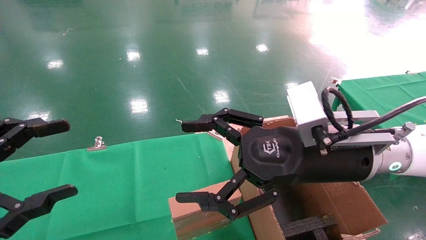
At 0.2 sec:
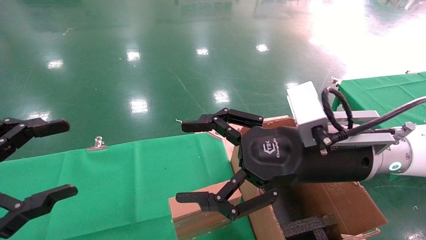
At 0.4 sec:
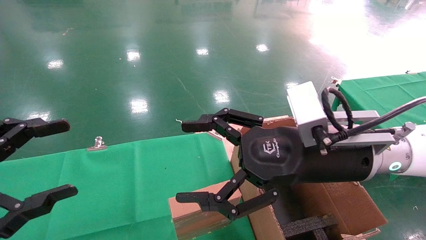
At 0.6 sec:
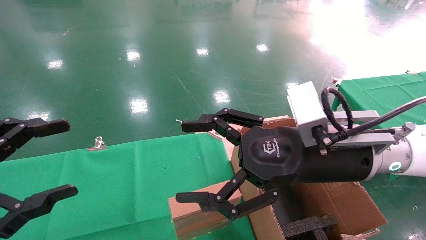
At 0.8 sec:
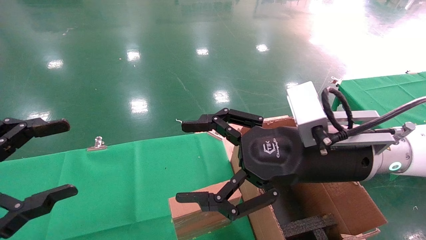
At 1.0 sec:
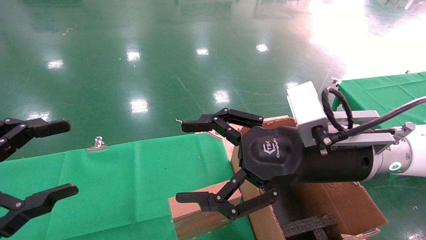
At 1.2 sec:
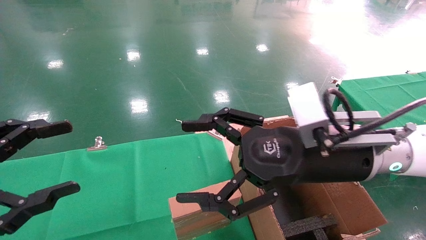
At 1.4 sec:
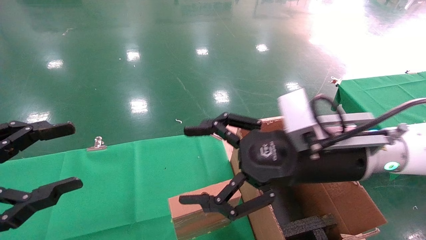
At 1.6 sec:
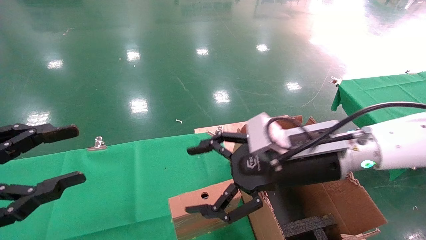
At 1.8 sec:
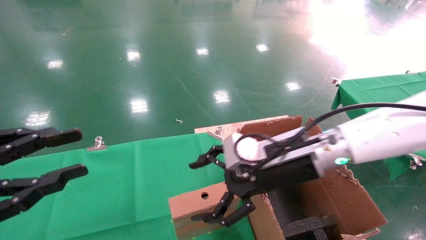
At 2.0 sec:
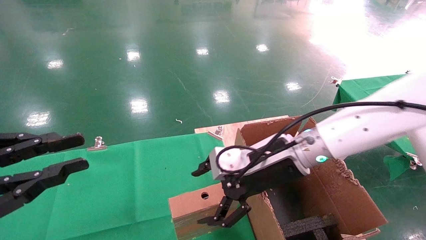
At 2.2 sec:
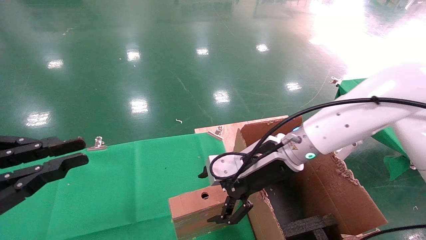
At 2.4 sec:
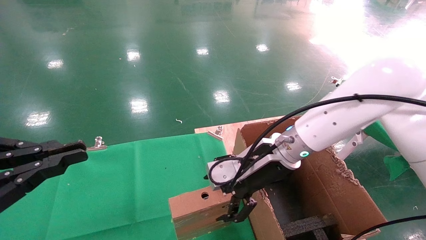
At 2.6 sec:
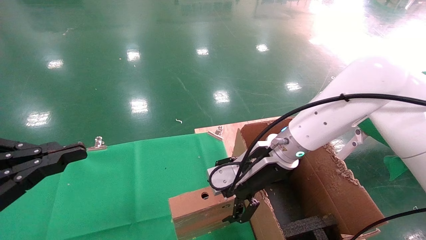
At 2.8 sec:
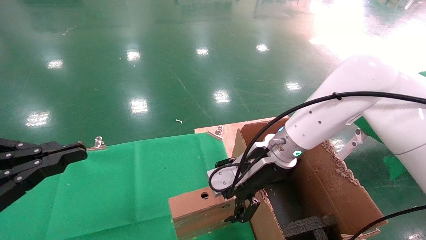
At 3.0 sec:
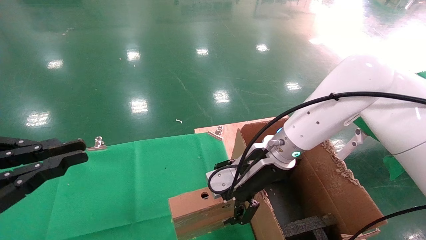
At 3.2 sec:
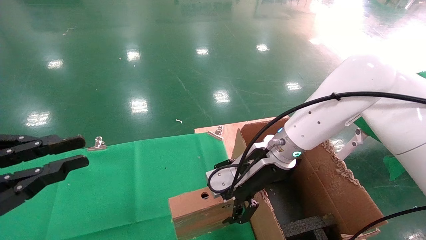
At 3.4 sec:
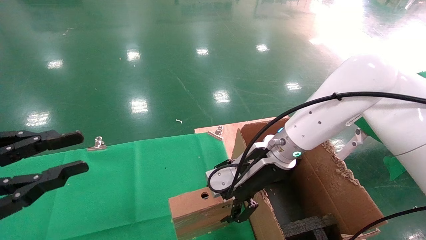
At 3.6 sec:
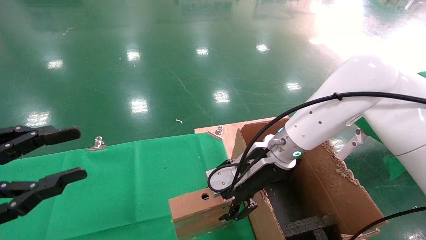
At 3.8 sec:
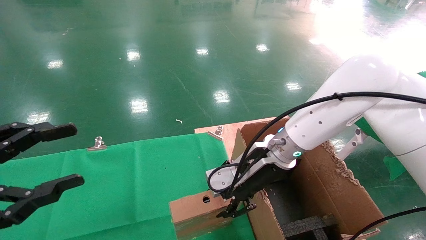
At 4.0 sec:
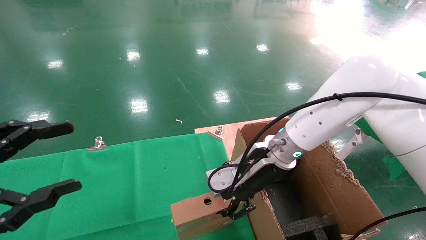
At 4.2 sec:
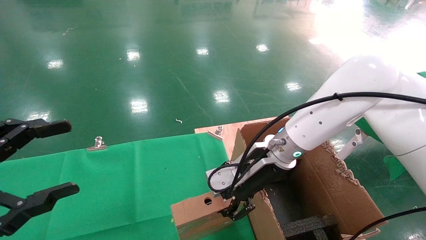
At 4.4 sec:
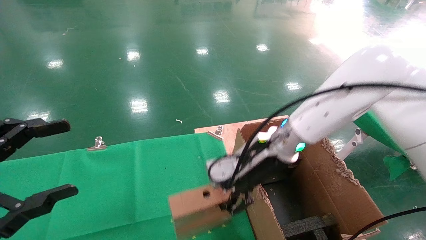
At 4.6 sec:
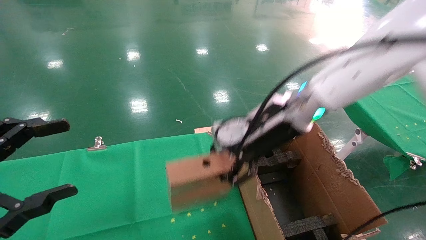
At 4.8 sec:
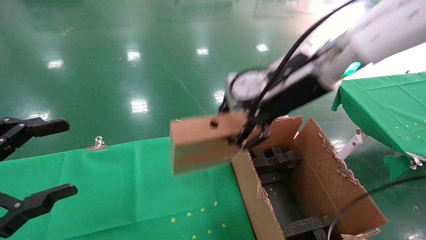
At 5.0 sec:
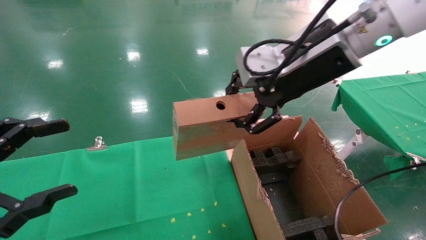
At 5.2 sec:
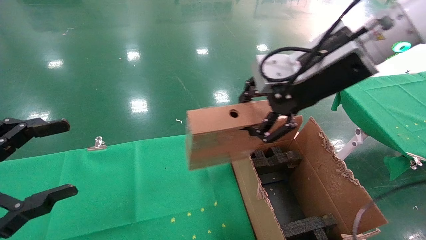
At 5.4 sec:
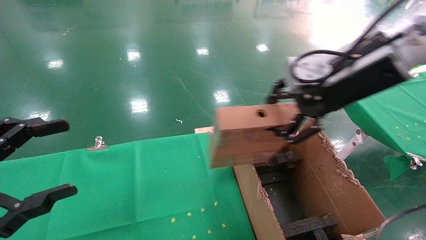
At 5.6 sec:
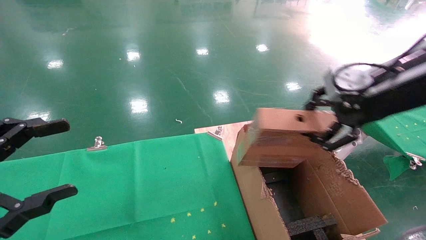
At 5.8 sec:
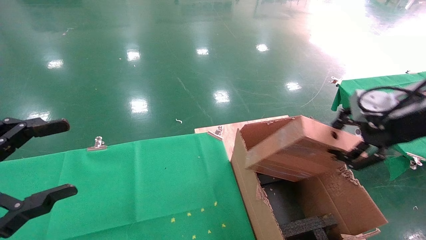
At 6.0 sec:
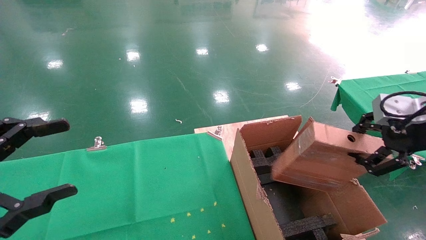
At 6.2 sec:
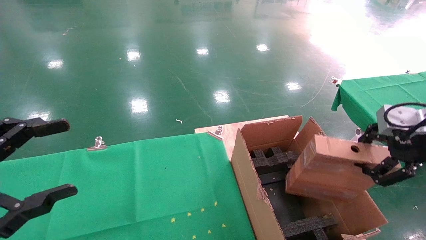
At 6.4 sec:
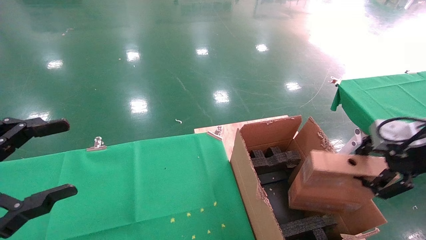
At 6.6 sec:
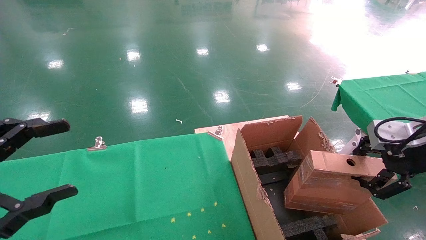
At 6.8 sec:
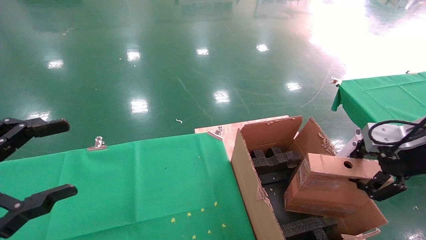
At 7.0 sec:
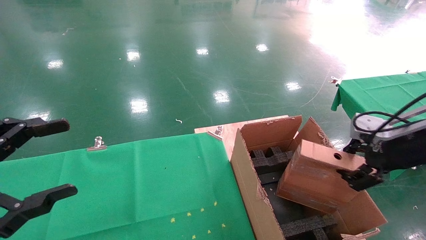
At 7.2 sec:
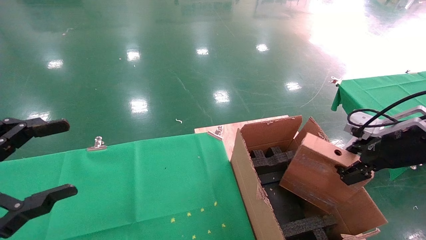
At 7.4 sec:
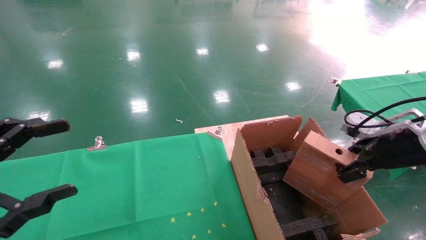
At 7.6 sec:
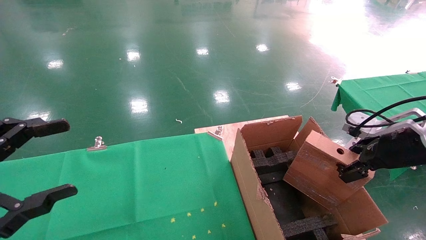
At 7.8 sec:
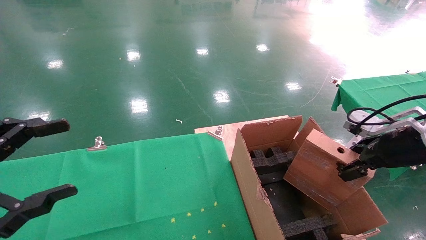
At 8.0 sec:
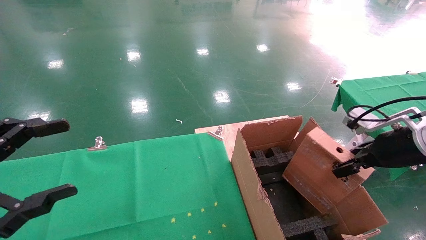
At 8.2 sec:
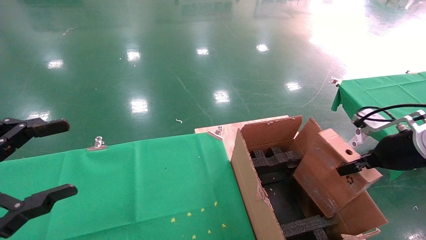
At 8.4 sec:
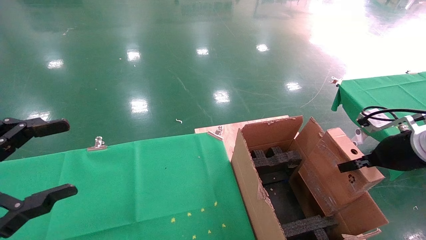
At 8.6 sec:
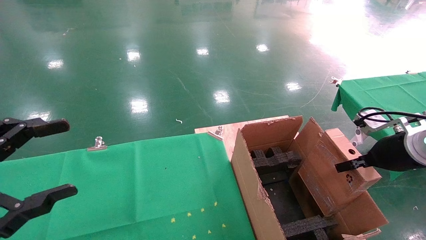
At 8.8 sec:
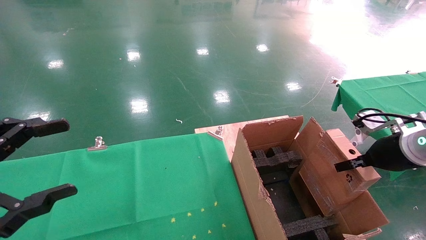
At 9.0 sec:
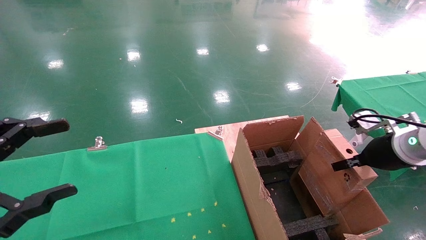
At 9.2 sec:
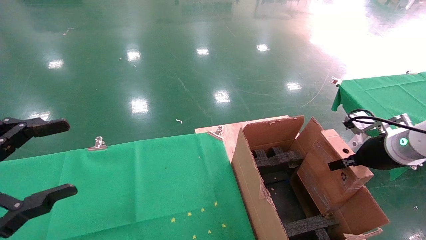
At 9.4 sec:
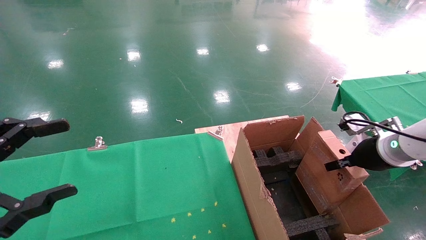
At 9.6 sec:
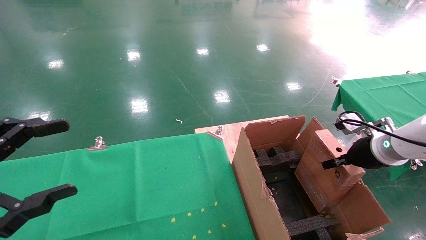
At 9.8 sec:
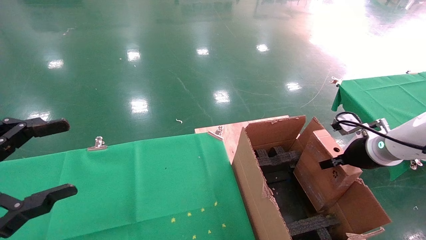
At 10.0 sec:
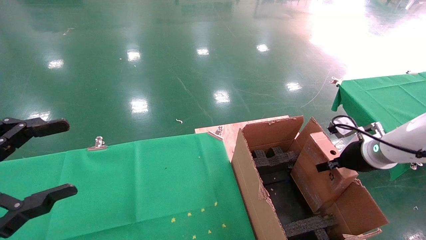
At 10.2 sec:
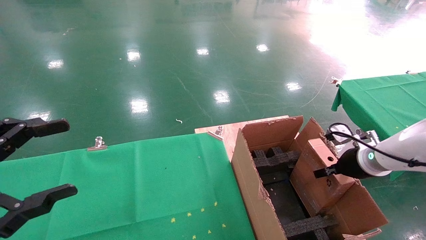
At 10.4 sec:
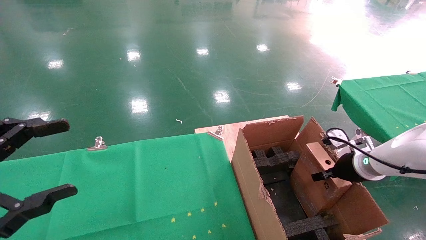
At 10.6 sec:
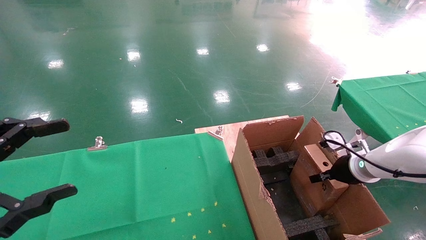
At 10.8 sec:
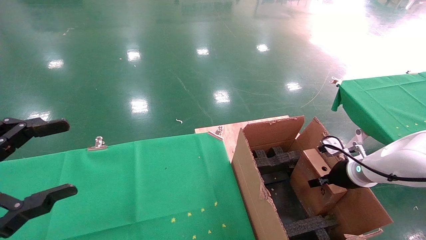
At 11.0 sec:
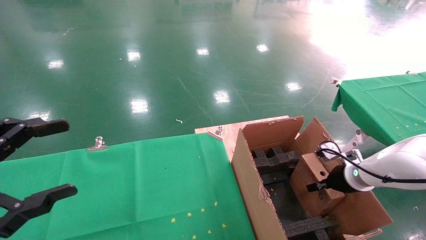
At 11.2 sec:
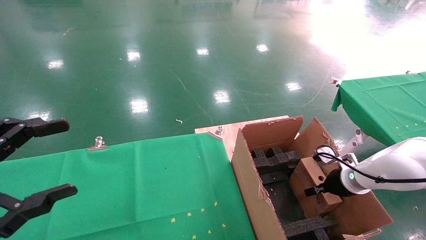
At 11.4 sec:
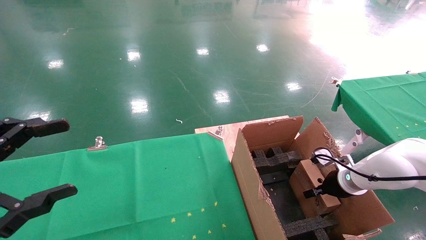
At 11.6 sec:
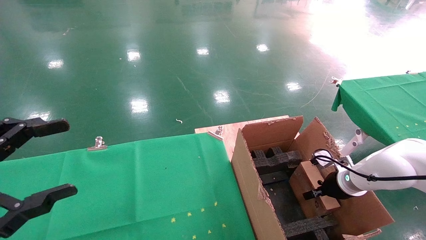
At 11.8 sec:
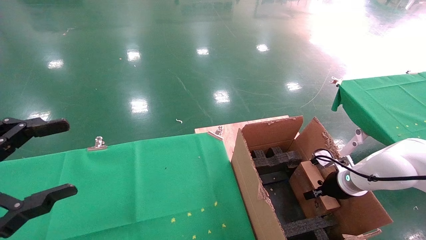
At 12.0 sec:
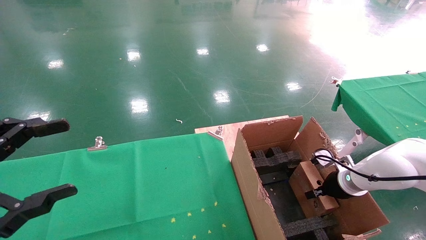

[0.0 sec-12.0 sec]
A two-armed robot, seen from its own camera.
Task of the whole recording: using a robotic arm to pick up a cardboard box and palace it the carton.
Step, 1.6 sec to 4.0 sec: Pick up the mouse and the power cord paper box.
0.0 sec to 1.6 sec: The grippers move only a little.
1.6 sec to 3.0 sec: The right gripper goes about 10 cm forward; the left gripper closes.
3.0 sec to 4.4 sec: The right gripper closes up. The left gripper opens its fingers.
4.4 sec to 6.0 sec: The right gripper moves to the right and backward, some 30 cm.
6.0 sec to 7.6 sec: The right gripper is displaced downward by approximately 5 cm.
9.0 sec to 10.4 sec: The right gripper goes approximately 10 cm downward and forward.
10.4 sec to 12.0 sec: The right gripper shifts some 5 cm downward.

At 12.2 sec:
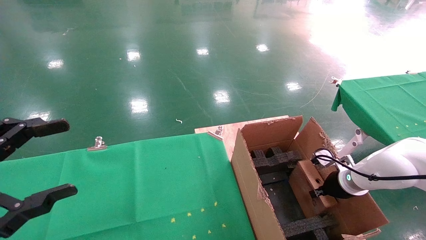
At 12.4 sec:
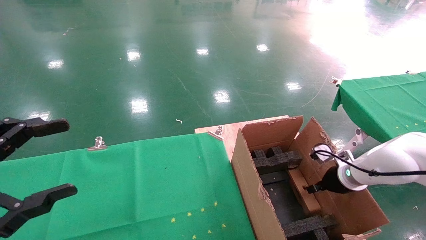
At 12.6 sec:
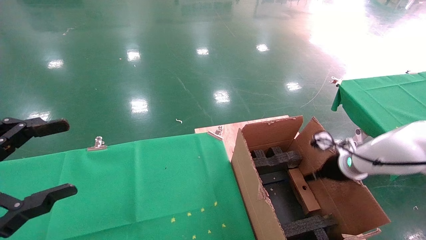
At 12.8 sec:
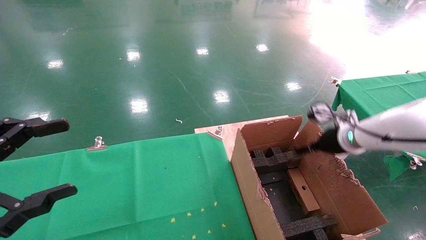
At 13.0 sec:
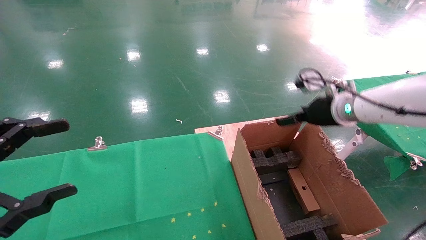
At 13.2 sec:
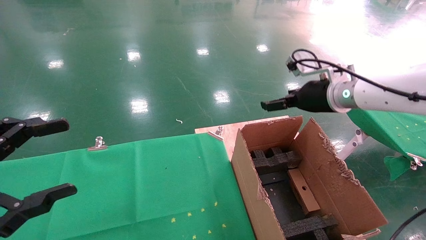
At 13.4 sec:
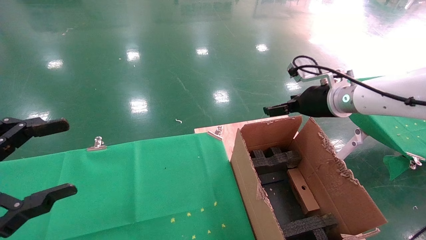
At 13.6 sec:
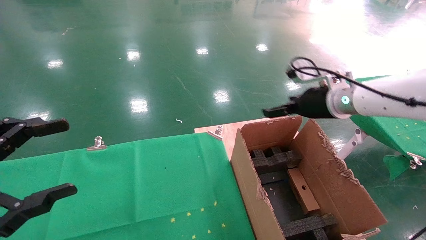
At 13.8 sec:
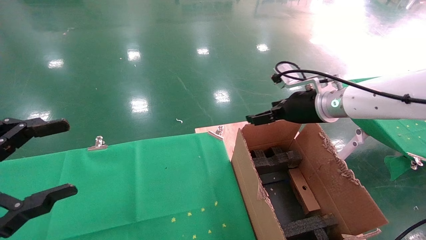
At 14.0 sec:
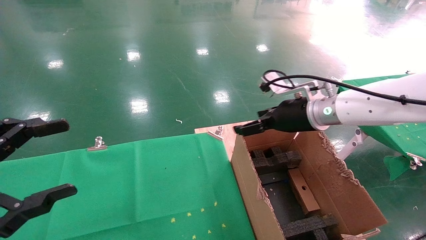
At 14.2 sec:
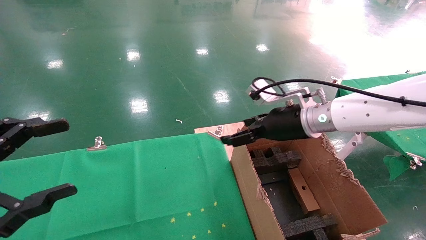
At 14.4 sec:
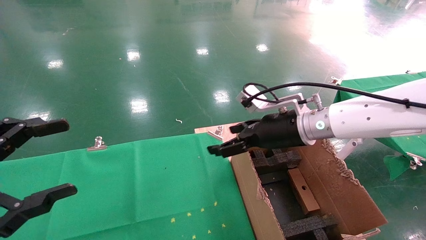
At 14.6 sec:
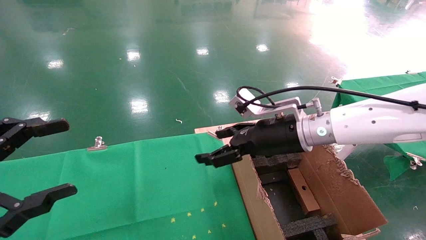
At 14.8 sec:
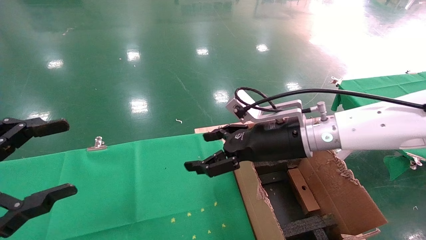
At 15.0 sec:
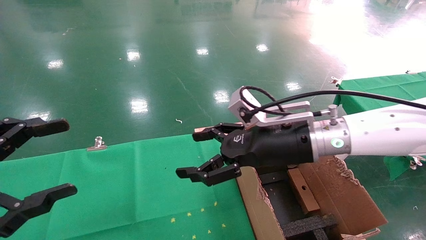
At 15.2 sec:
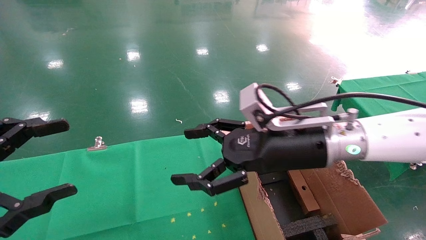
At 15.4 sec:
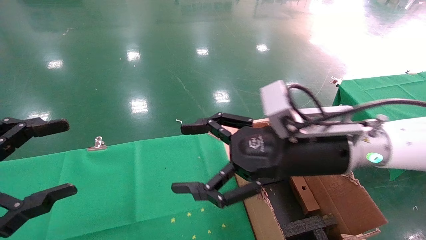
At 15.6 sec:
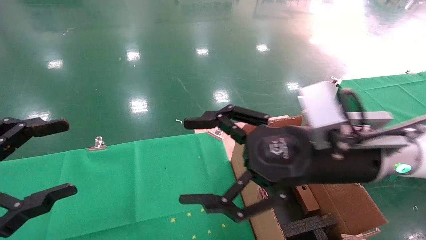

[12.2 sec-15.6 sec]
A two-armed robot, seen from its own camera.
Task of the whole recording: using a robotic arm to pick up a cardboard box and palace it the carton.
12.2 sec to 13.8 sec: The right gripper heads upward and to the left, covering roughly 20 cm, and opens its fingers.
13.8 sec to 15.6 sec: The right gripper heads backward and to the left, covering approximately 15 cm.
